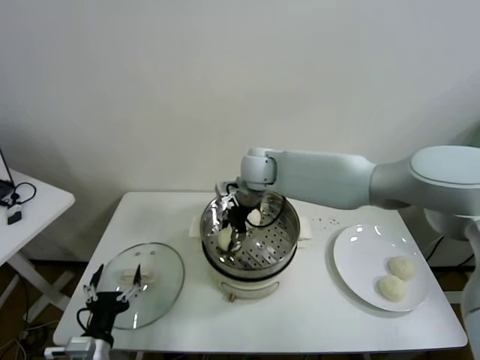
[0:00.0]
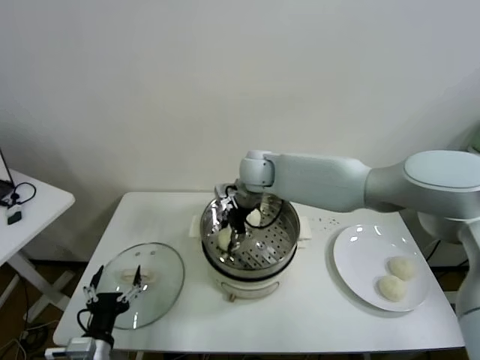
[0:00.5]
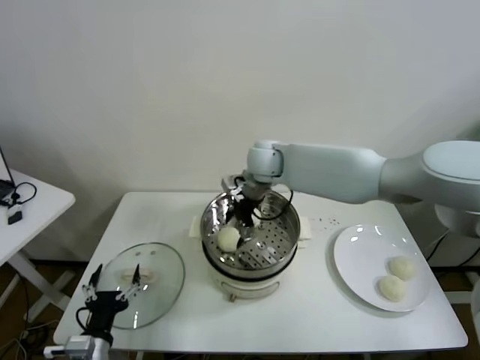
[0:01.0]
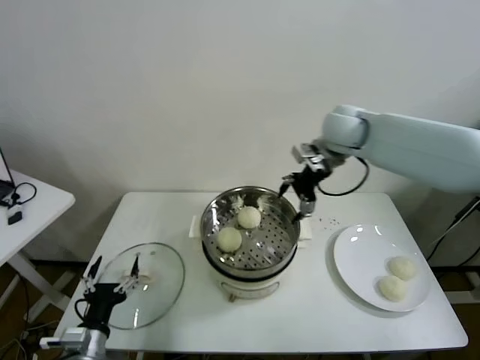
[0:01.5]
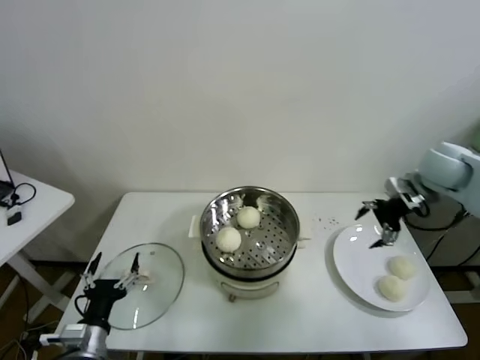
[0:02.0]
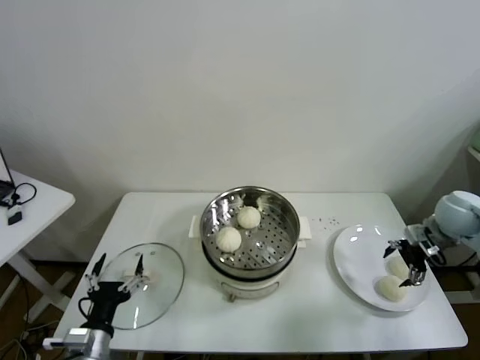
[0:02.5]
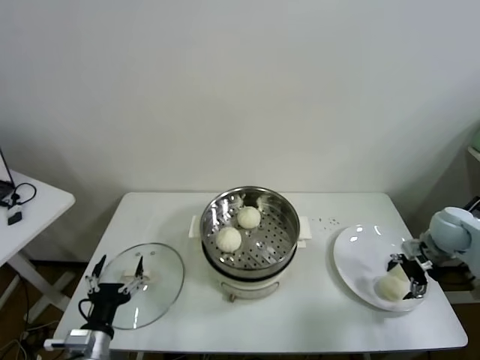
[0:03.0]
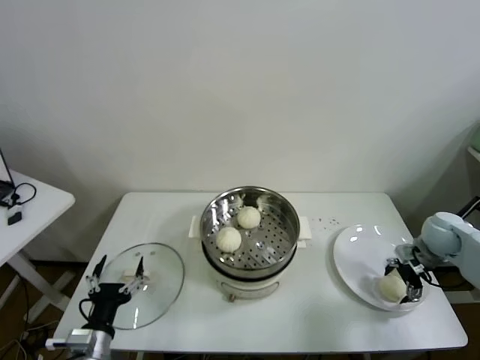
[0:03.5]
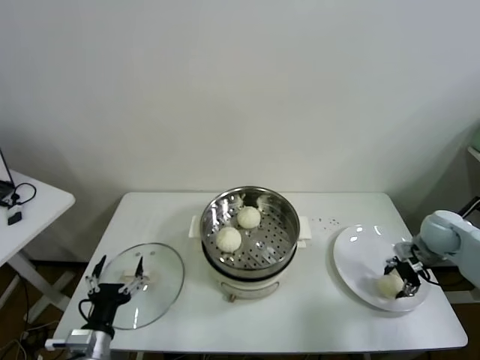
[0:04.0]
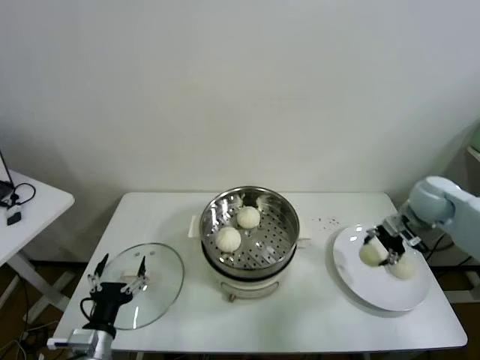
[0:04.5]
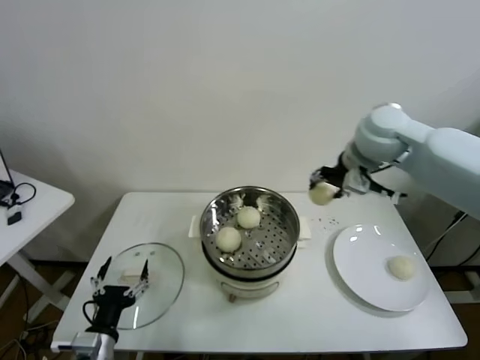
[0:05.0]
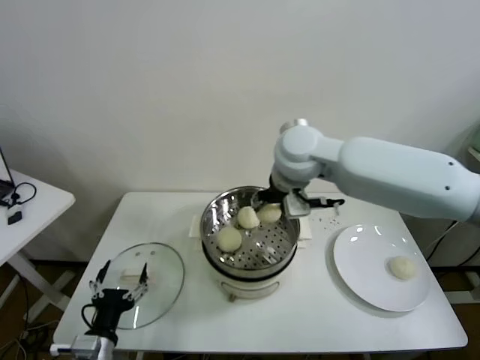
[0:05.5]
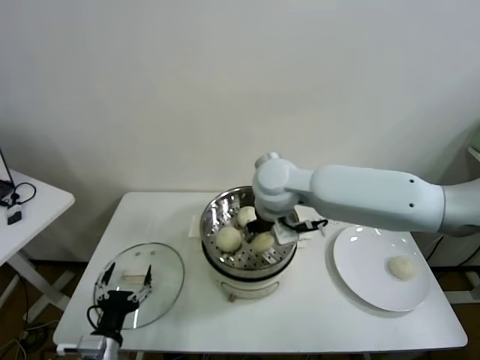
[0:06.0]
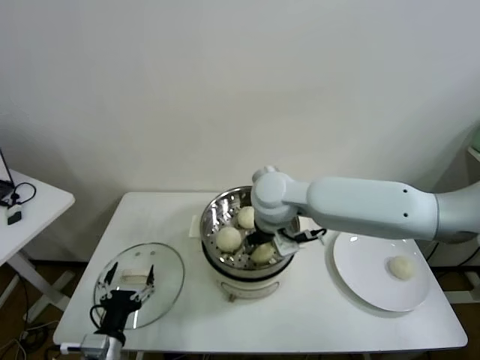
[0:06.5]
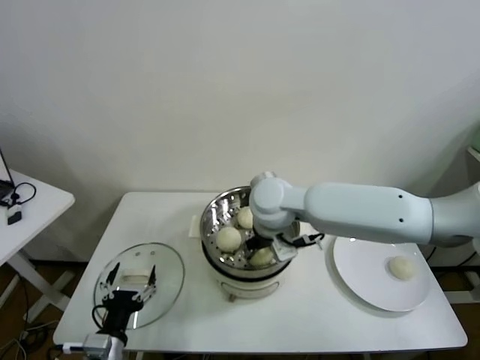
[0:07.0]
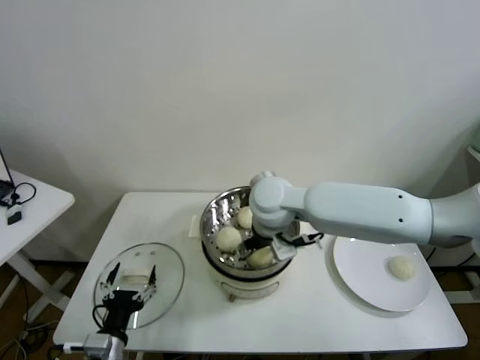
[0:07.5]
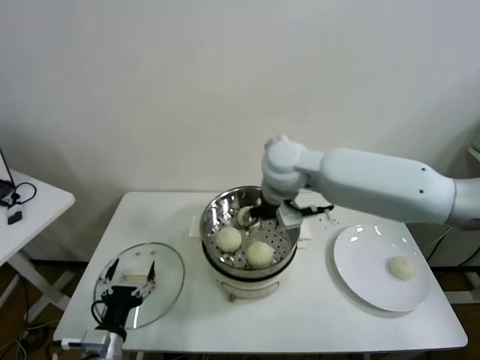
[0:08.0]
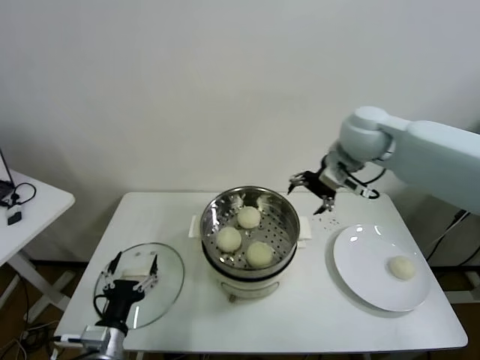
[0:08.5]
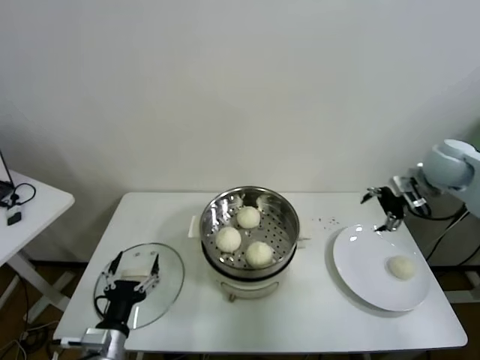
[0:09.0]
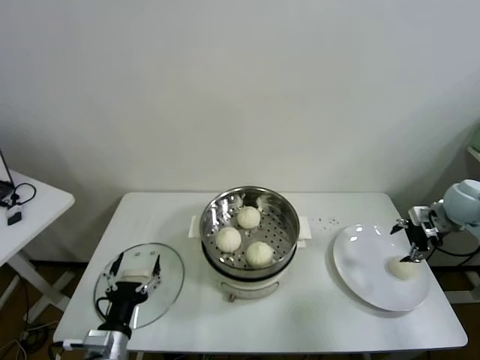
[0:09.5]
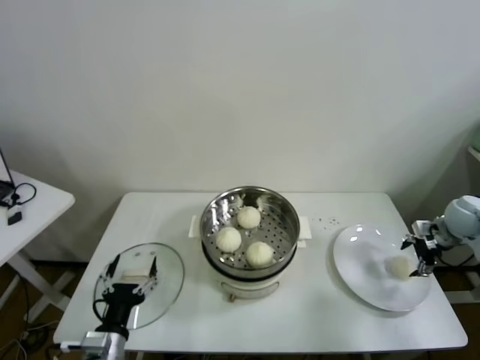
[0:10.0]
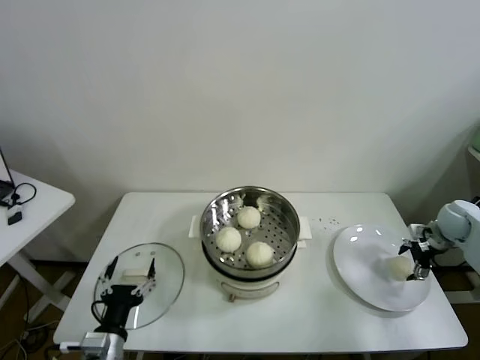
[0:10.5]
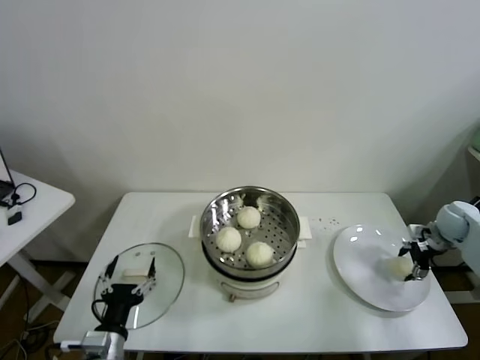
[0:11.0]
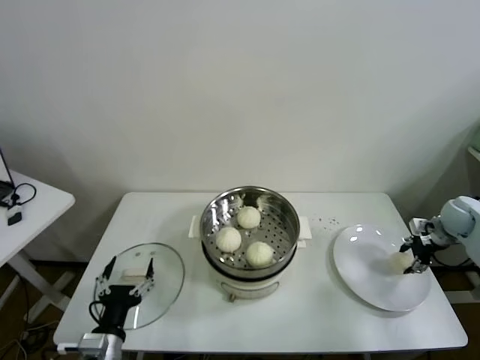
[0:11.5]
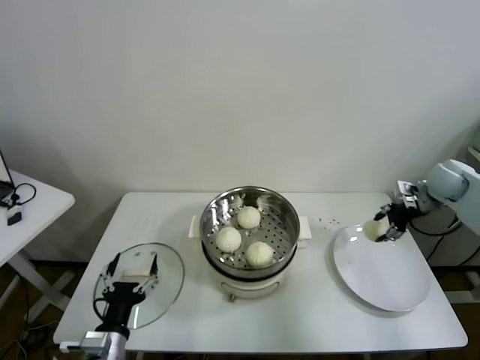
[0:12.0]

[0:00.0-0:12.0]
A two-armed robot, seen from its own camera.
Task of the whole recording: take steamed baozi put them in steamer.
Step, 0:01.0 to 0:03.5: Grasp the baozi in the plate with right gripper.
Step, 0:04.0 to 0:07.0: Place the baozi on the steamer with right gripper.
Step, 0:07.5 to 0:11.0: Grasp the baozi in the plate with right gripper.
0:00.0 to 0:02.0: The right gripper shifts about 40 cm to the right, and opens its fingers.
0:02.0 to 0:04.0: The right gripper moves downward, some 15 cm, and closes up.
0:04.0 to 0:06.0: The right gripper moves to the left and upward, some 40 cm.
0:06.0 to 0:08.0: The right gripper opens its fingers.
0:08.0 to 0:10.0: The right gripper travels to the right by about 50 cm.
0:10.0 to 0:12.0: The right gripper moves upward and forward, some 10 cm, and closes its fingers.

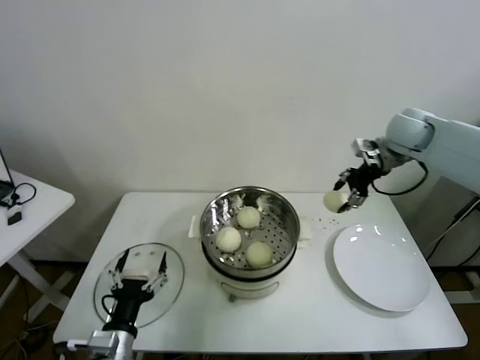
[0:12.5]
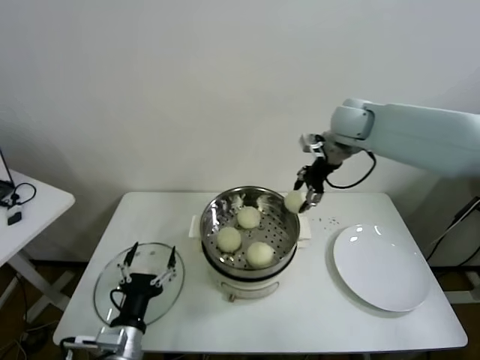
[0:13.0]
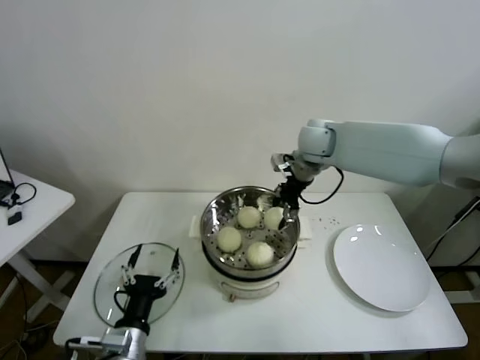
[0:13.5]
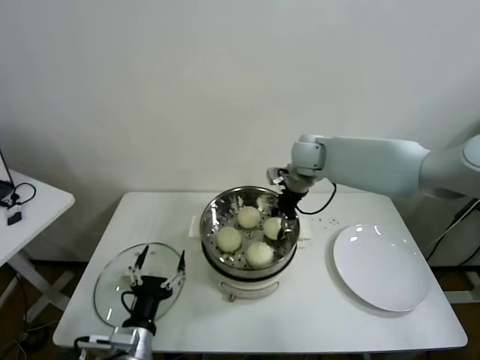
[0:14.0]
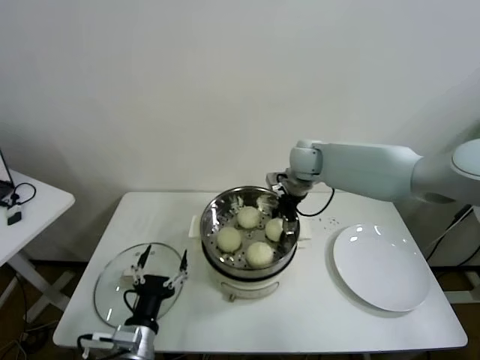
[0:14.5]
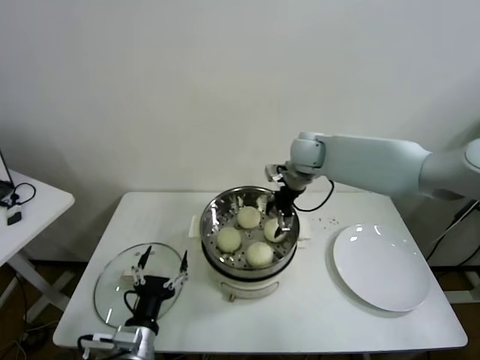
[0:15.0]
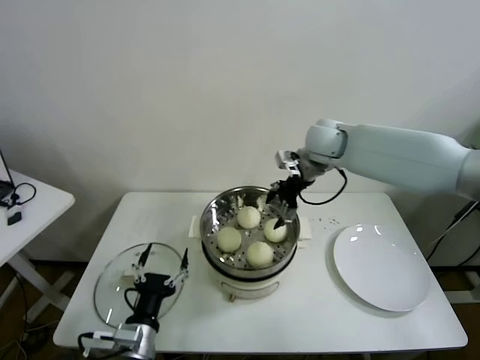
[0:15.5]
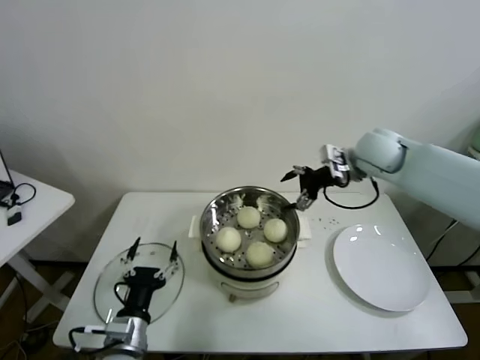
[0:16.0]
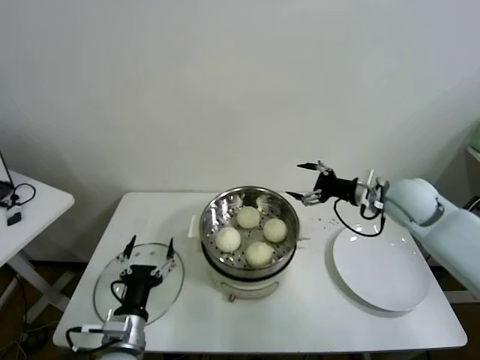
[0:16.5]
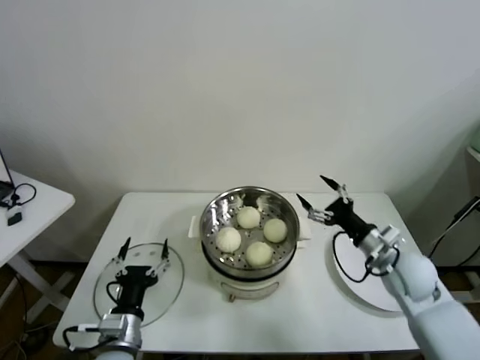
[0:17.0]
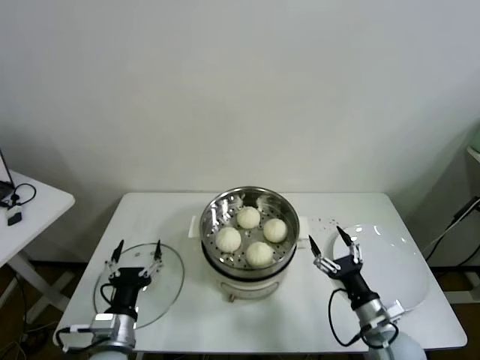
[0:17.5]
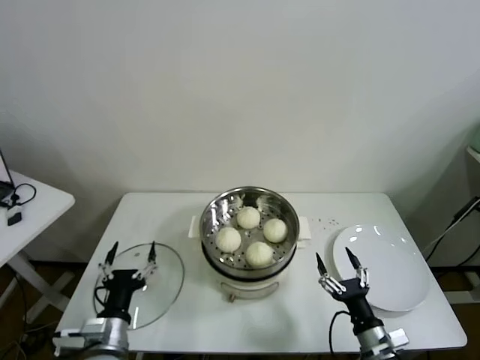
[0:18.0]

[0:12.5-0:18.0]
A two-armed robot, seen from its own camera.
Task of the whole recording: take steamed baozi put them in steamer.
Step, 0:12.5 to 0:15.0: Place the baozi on the steamer with right gripper.
0:12.5 to 0:14.5: The right gripper heads to the left and downward, covering about 20 cm.
0:14.5 to 0:16.0: The right gripper shifts approximately 15 cm to the right, upward and backward, and opens.
0:16.0 to 0:18.0: The right gripper moves backward and downward, approximately 50 cm.
